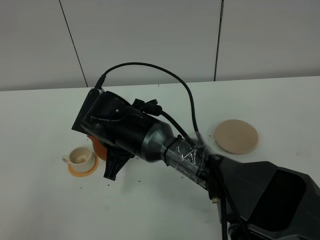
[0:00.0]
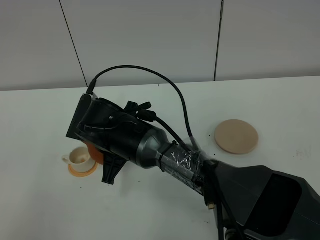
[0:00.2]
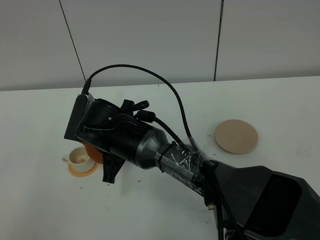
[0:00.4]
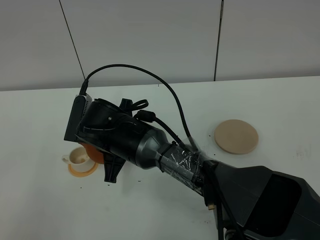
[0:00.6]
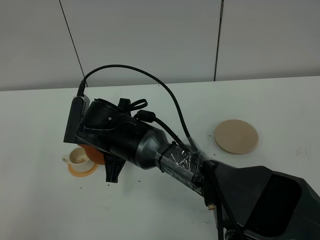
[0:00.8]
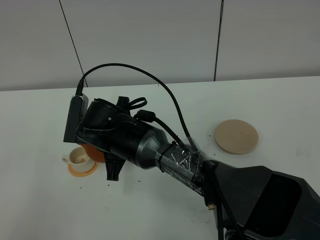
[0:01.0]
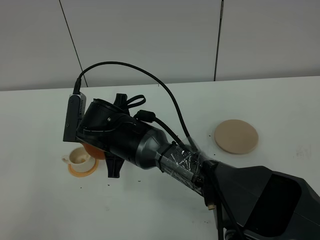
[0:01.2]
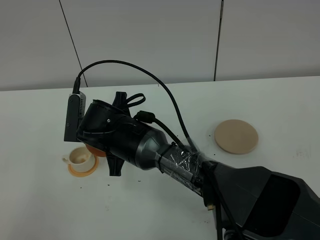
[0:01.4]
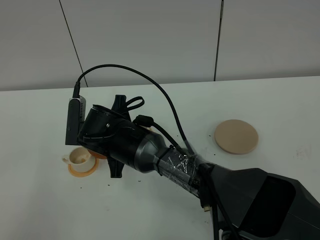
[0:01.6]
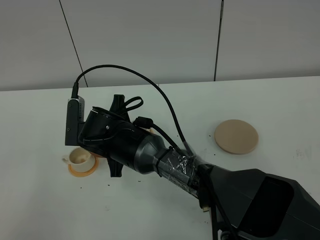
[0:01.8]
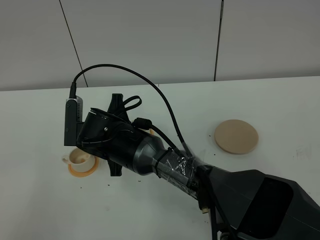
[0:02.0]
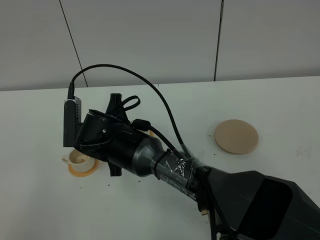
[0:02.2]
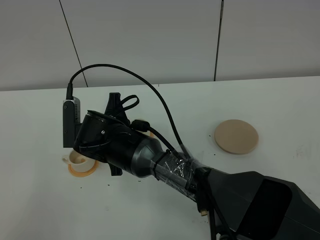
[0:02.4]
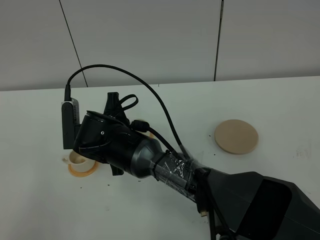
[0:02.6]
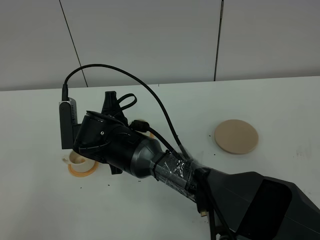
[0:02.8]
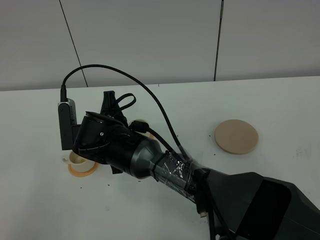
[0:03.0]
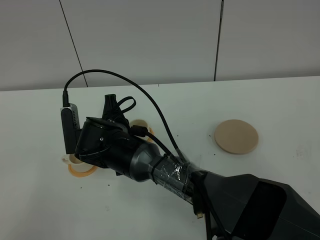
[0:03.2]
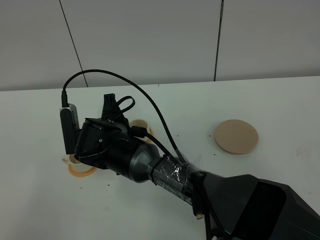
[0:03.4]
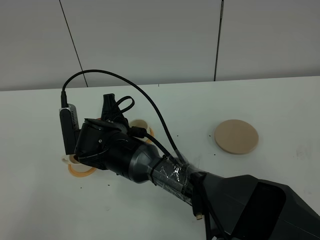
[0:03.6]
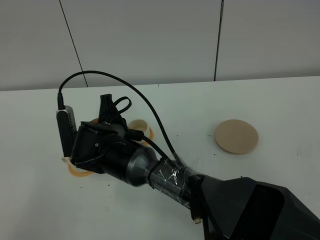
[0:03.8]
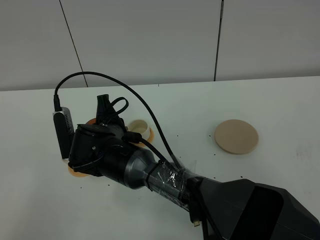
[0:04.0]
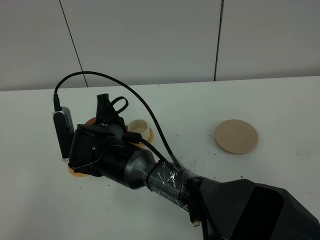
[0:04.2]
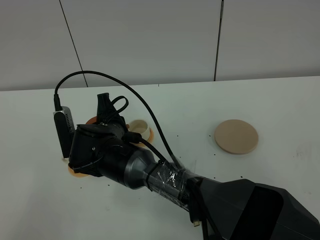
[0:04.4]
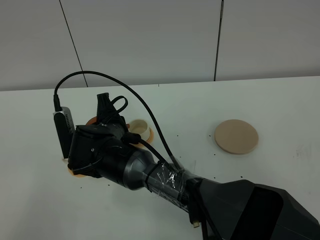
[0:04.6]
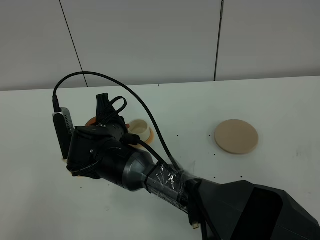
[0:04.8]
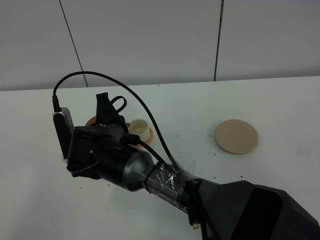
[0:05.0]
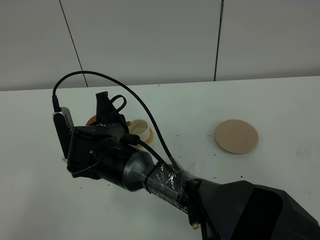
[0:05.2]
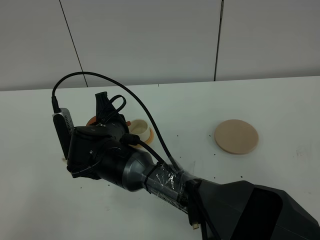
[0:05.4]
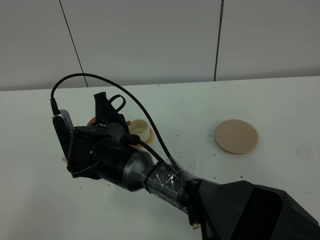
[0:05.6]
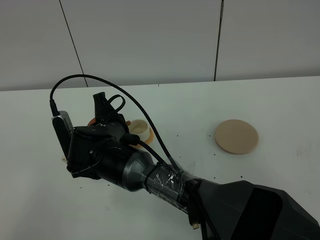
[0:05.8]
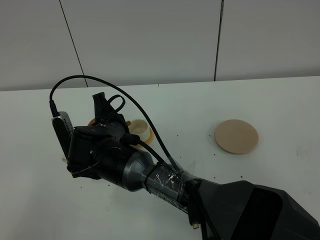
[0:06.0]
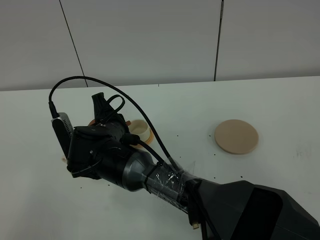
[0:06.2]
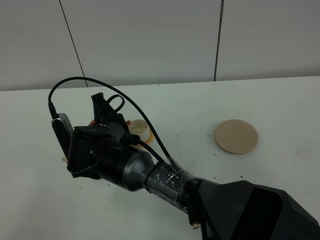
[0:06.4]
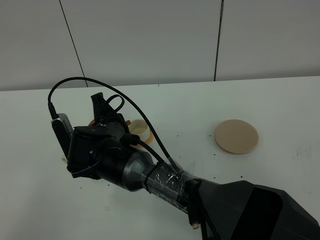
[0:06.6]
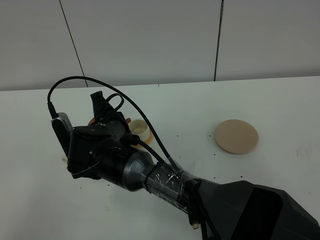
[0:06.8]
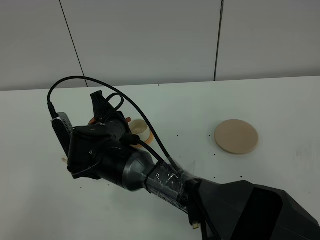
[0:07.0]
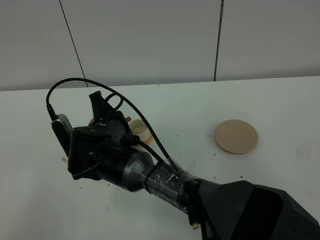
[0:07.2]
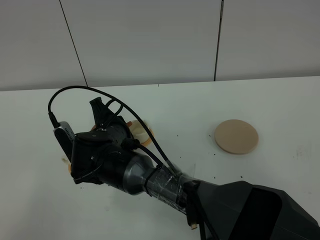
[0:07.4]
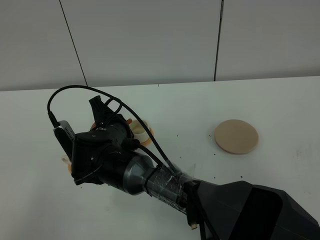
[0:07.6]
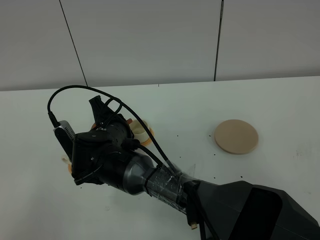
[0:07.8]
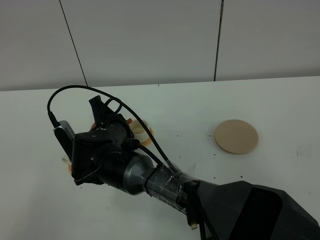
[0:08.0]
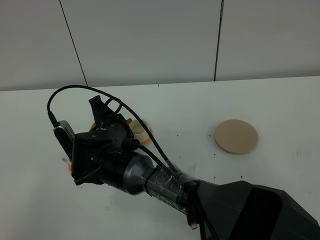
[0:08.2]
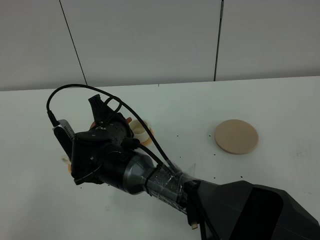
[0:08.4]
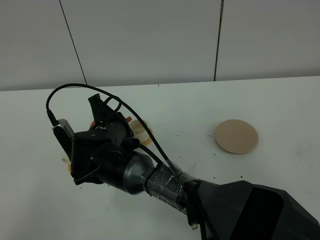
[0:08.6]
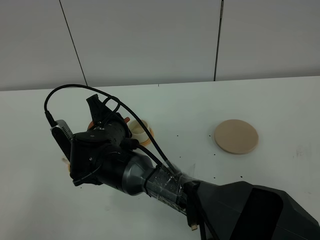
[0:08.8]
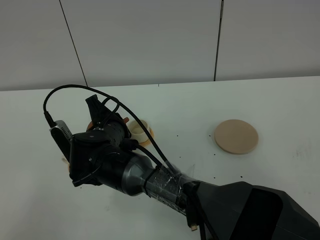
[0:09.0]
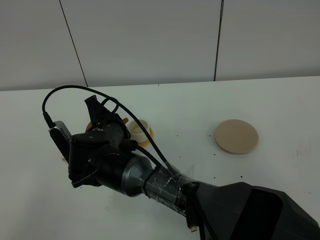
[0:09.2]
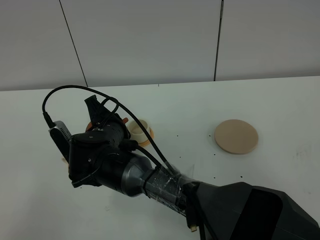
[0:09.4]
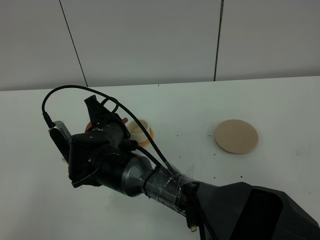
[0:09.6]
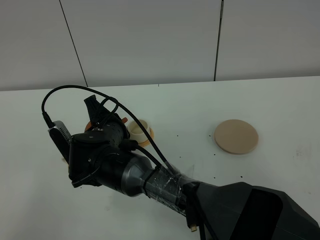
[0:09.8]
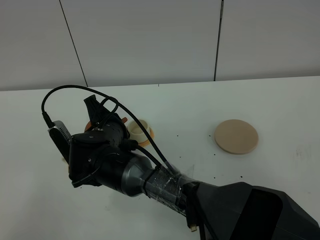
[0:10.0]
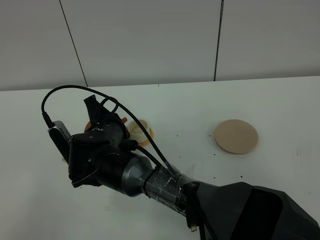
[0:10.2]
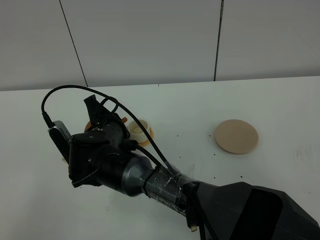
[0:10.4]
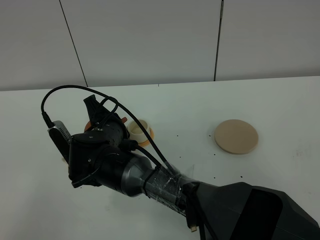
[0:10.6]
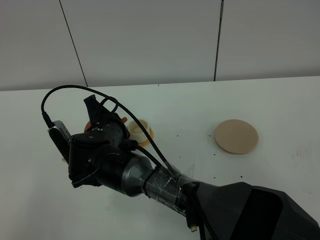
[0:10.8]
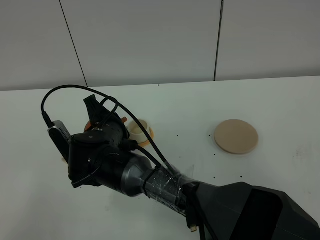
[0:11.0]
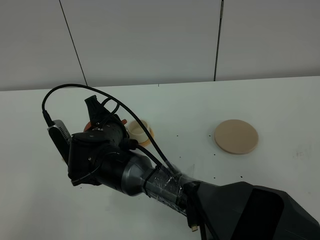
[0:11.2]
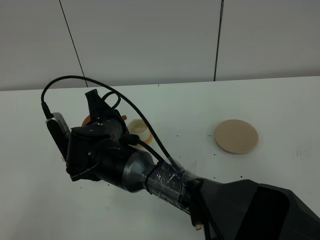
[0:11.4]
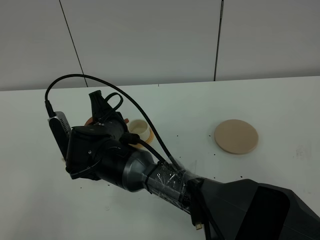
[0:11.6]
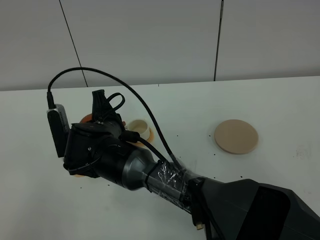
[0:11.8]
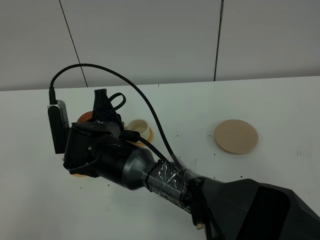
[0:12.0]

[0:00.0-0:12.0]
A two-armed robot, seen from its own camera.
Task of the whole recording: grasp the brown teapot and pour the tea into the two white teacups one by one, put the brown teapot back in its original place.
0:00.0 to 0:01.6: There are only small adjustments of the grippers.
0:01.6 to 0:04.4: The grippers stay close to where they were, moving slightly.
0:04.4 to 0:07.6: There are only small adjustments of the grippers.
0:07.6 to 0:10.4: The two grippers keep their place.

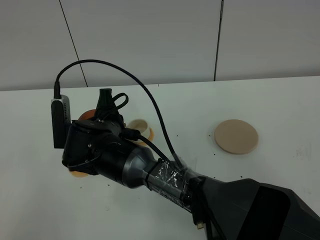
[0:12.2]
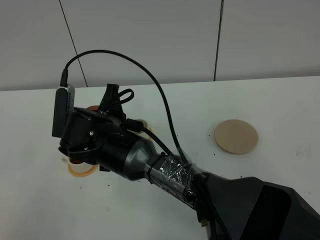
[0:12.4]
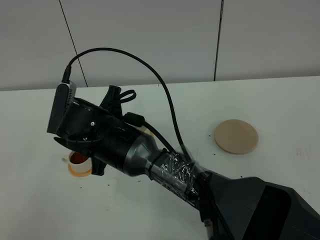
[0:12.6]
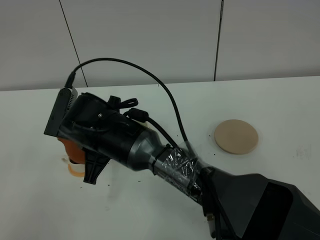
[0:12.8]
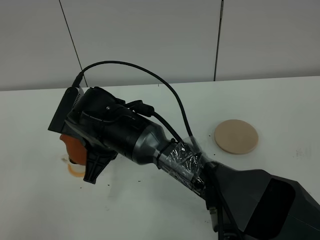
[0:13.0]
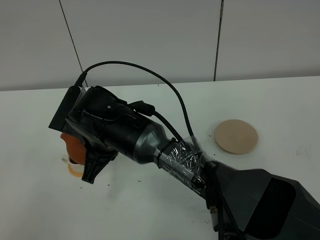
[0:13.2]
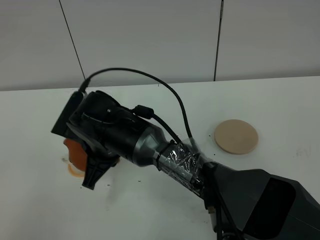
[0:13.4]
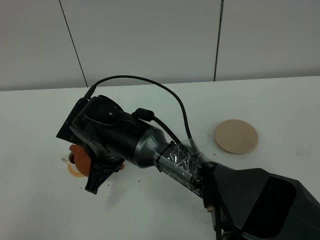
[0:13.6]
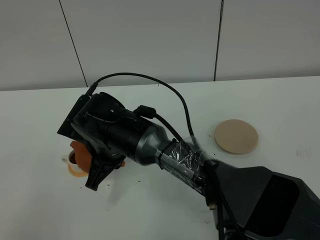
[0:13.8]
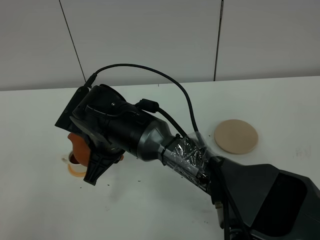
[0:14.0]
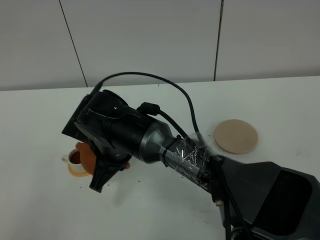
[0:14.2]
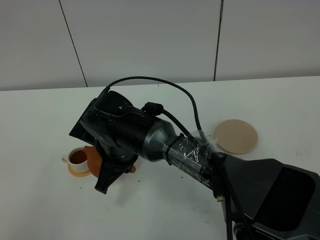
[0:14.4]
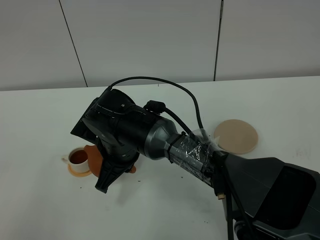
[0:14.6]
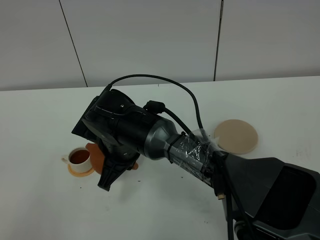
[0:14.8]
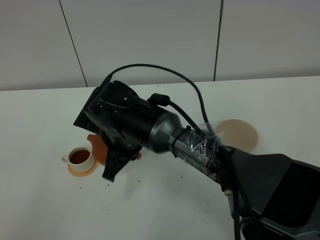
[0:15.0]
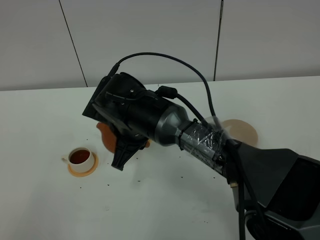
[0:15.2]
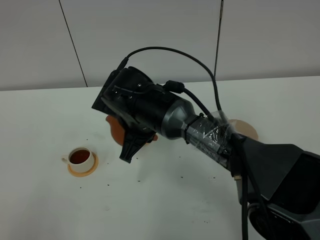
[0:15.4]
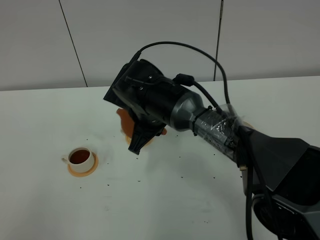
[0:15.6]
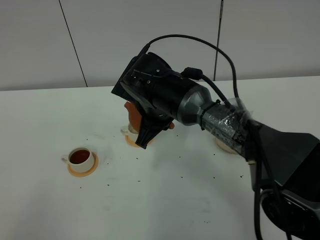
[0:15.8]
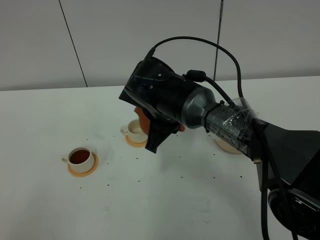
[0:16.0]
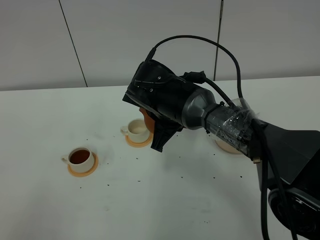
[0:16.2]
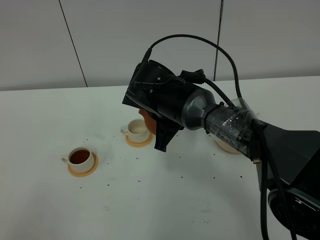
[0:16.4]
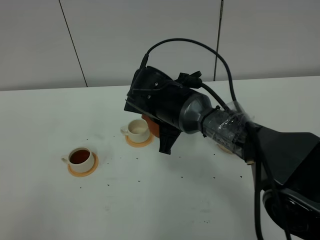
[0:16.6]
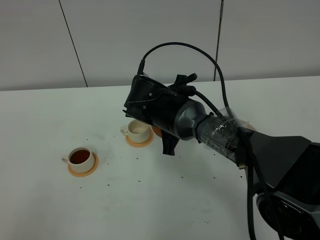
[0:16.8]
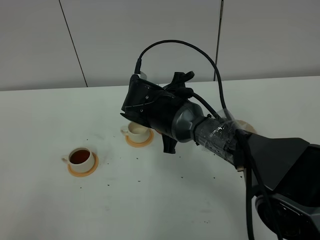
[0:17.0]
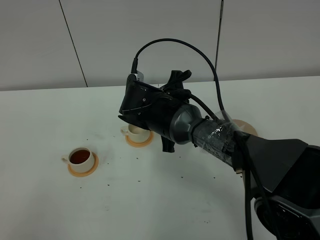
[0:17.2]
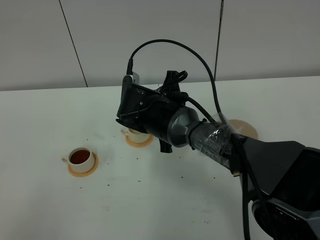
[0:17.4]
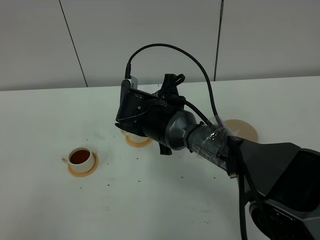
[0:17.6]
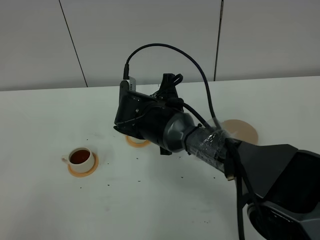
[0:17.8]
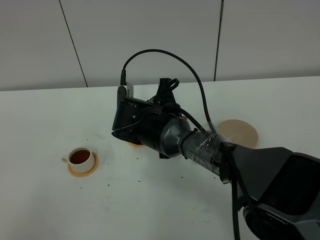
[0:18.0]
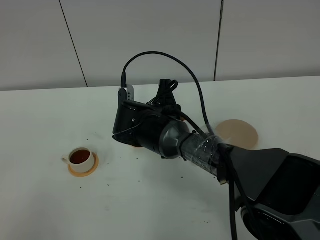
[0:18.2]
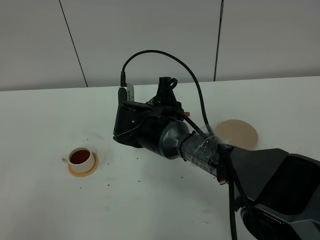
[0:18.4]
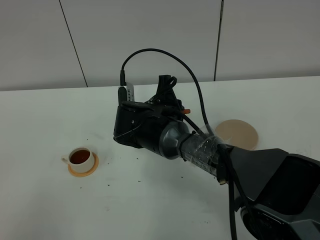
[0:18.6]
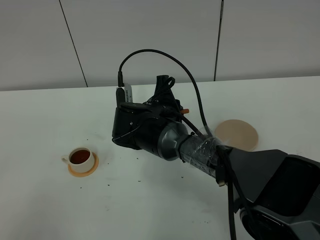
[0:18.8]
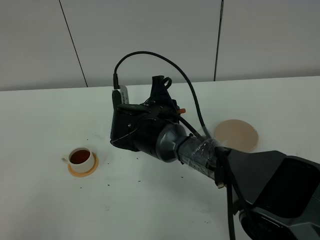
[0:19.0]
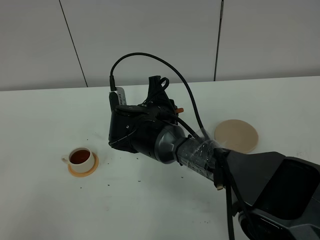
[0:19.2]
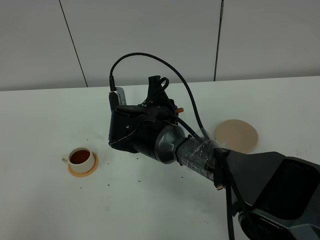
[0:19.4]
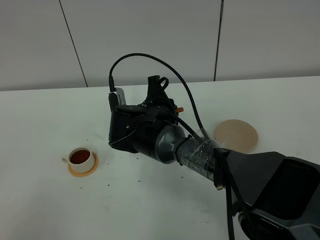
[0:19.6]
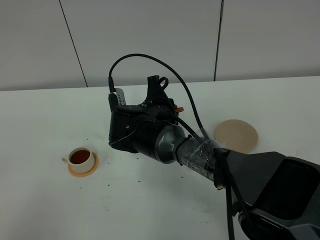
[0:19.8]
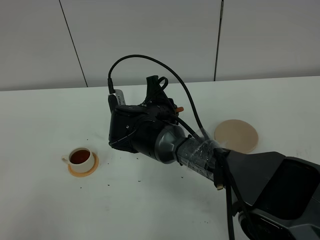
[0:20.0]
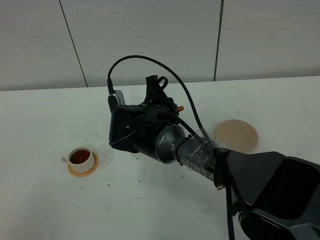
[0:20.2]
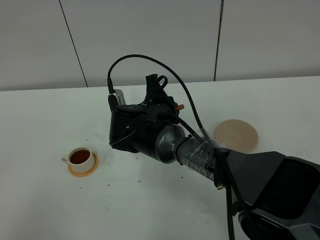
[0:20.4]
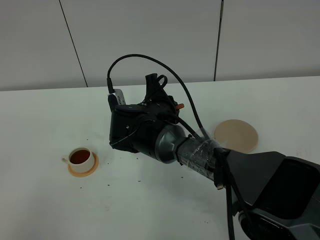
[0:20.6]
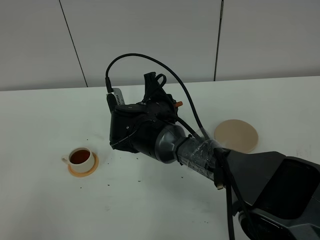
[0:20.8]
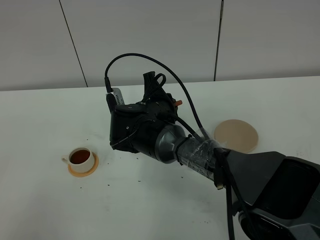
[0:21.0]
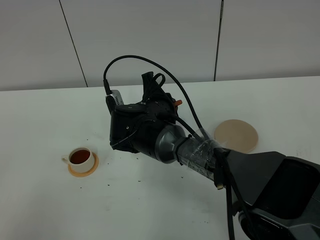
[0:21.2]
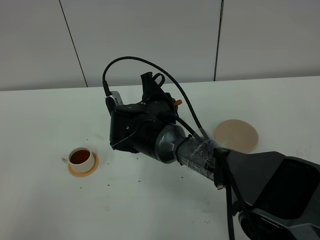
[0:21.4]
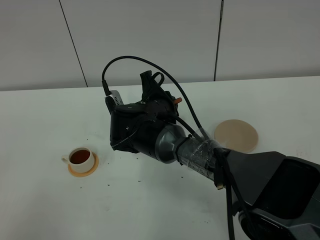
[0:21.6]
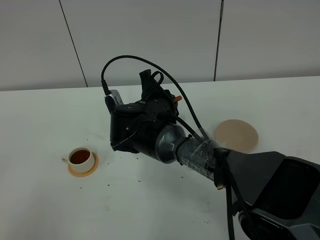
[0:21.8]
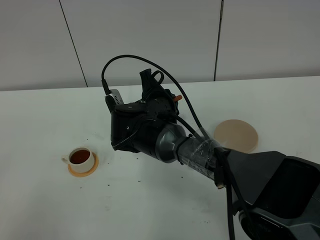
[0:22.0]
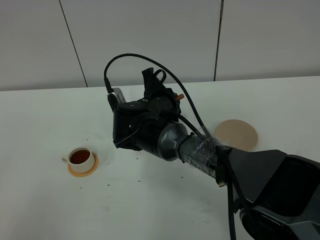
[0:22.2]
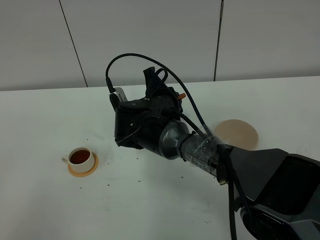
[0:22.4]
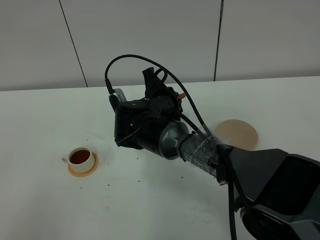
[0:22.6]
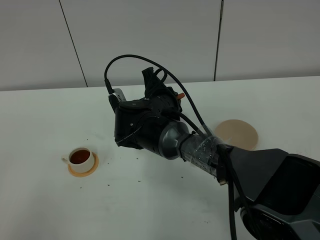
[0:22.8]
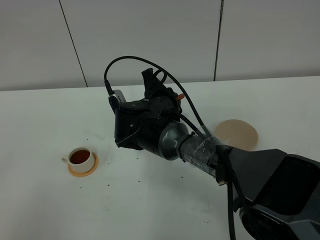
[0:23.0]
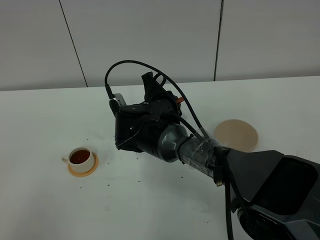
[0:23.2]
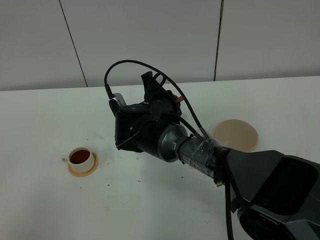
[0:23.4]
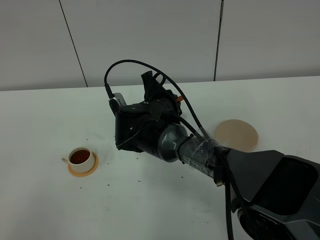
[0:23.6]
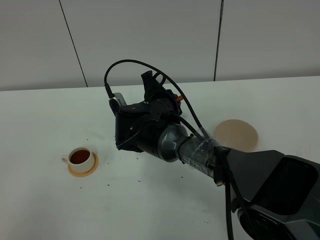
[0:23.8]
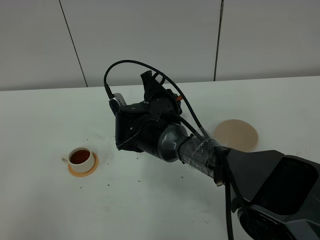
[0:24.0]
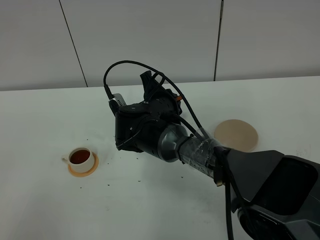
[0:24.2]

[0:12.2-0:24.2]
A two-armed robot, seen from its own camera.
Task of the whole recording: grasp the brown teapot and pour the tea into the two white teacups one by one, put the brown teapot back in its original place.
Step, 0:12.2 to 0:14.8: Pour tea into the teacup with the right gripper.
0:13.8 to 0:15.2: The right gripper shifts by approximately 5 cm.
0:15.2 to 0:16.6: The right gripper goes approximately 5 cm to the right.
0:16.6 to 0:18.2: There are only small adjustments of the grippers.
0:18.2 to 0:21.2: The grippers stay close to where they were, moving slightly.
0:21.2 to 0:22.6: Both grippers stay put.
0:22.6 to 0:24.2: Neither gripper changes place.
